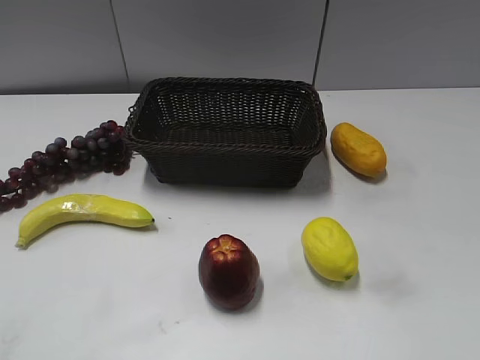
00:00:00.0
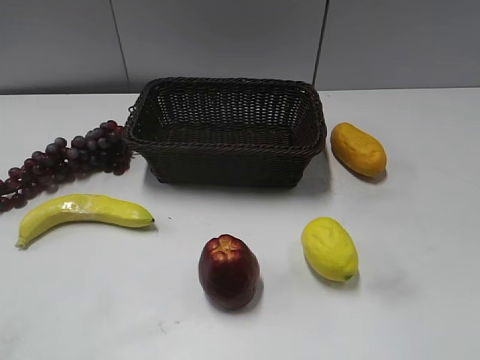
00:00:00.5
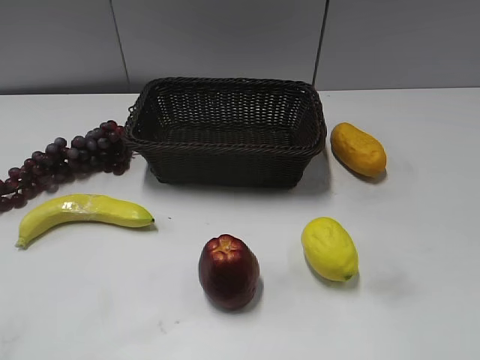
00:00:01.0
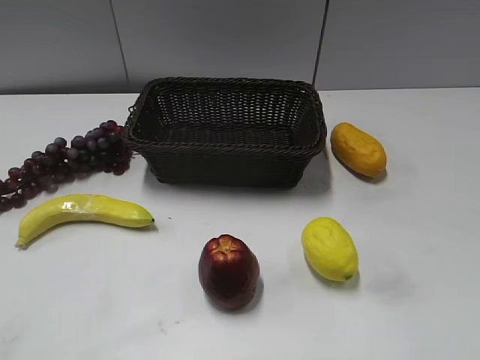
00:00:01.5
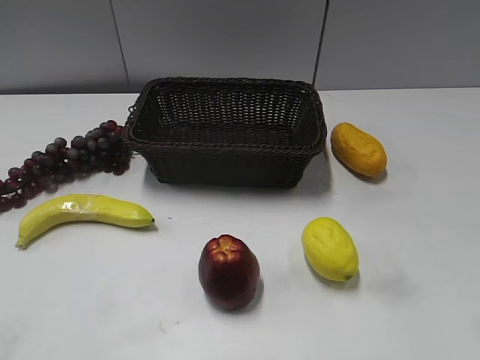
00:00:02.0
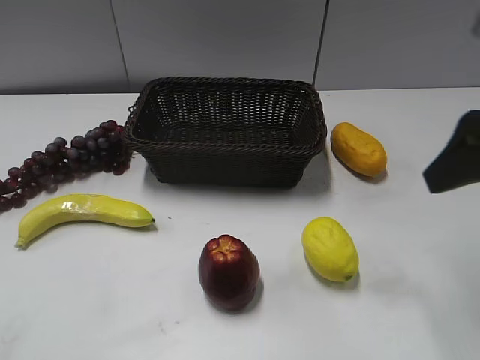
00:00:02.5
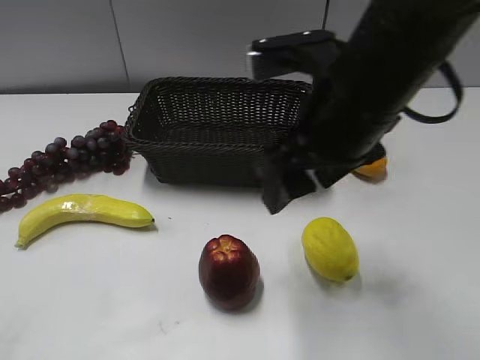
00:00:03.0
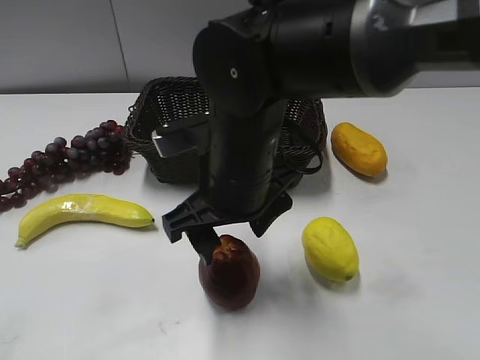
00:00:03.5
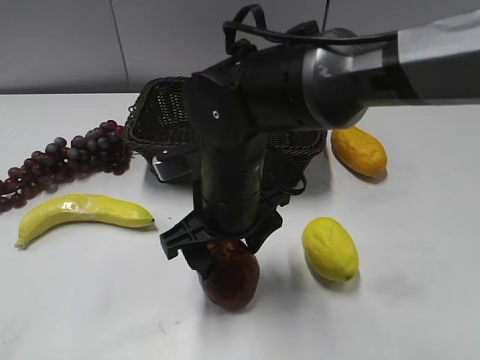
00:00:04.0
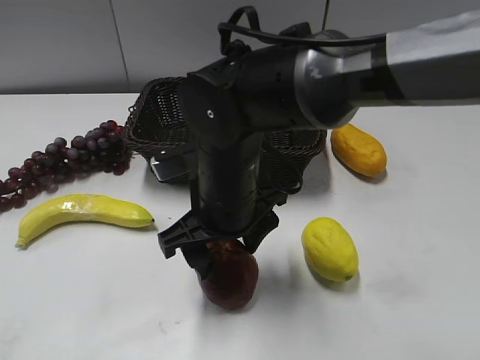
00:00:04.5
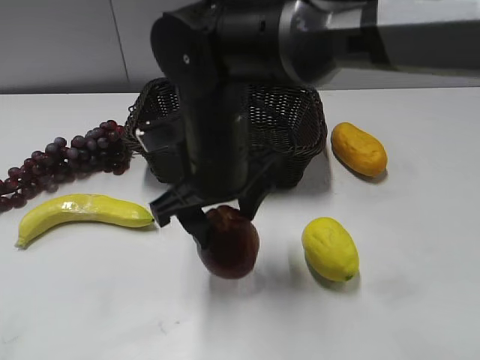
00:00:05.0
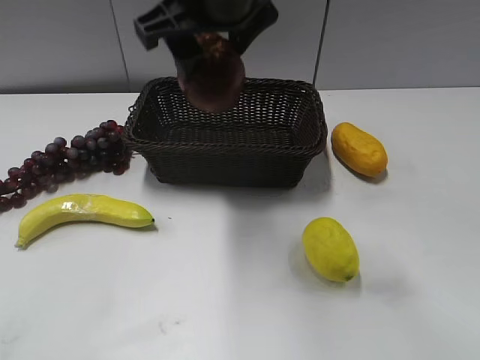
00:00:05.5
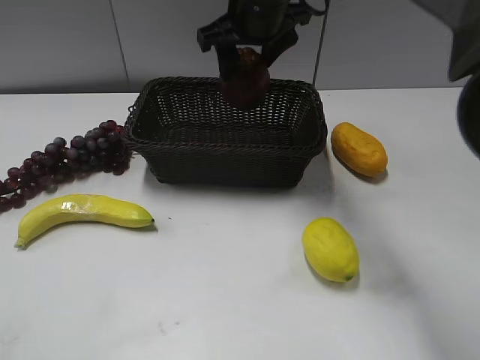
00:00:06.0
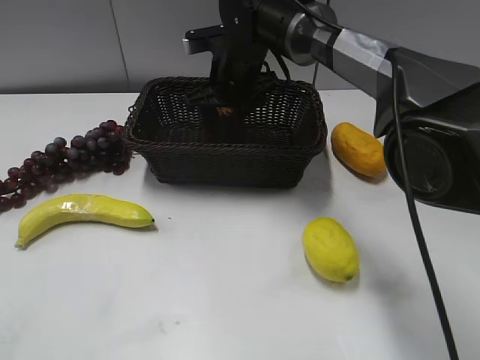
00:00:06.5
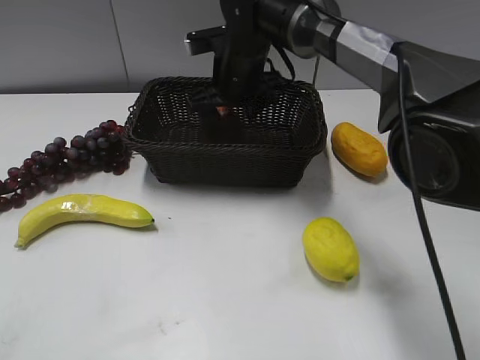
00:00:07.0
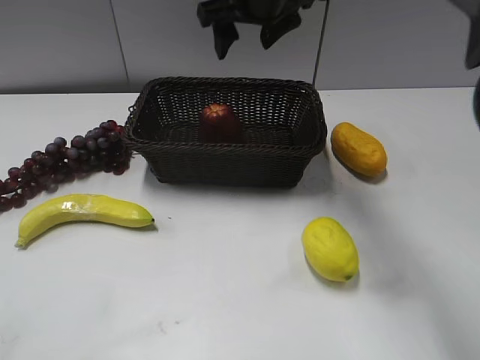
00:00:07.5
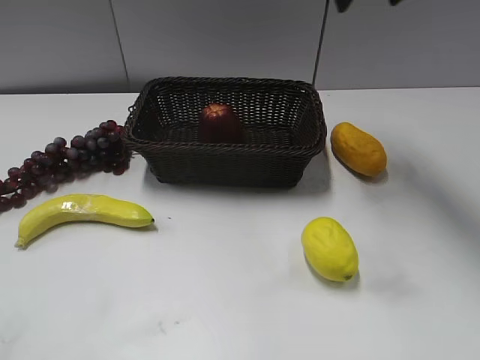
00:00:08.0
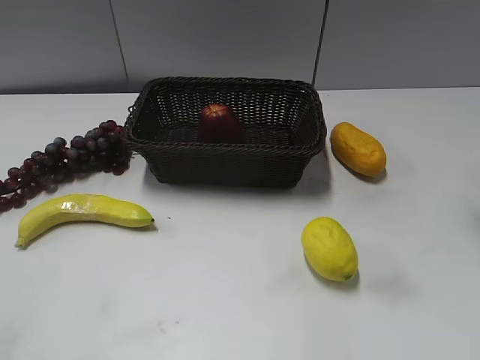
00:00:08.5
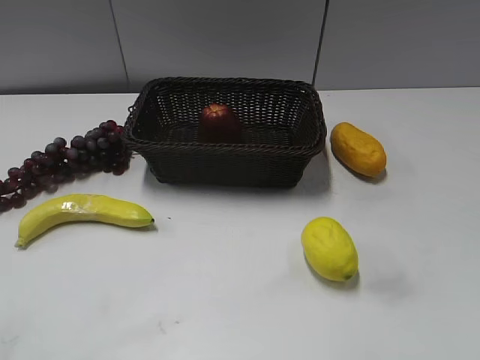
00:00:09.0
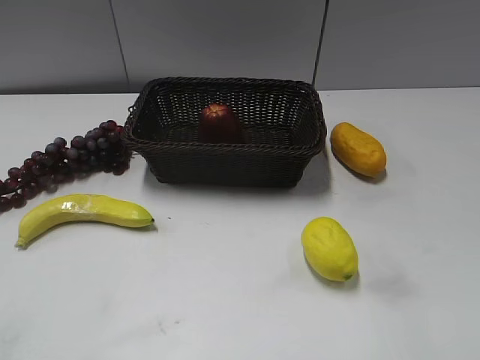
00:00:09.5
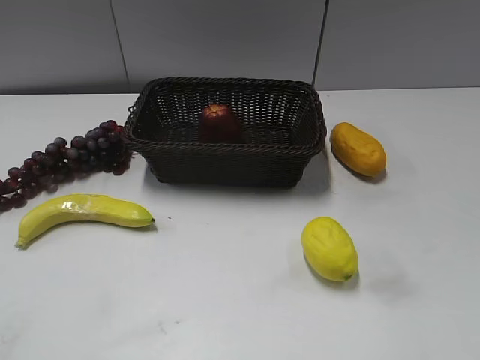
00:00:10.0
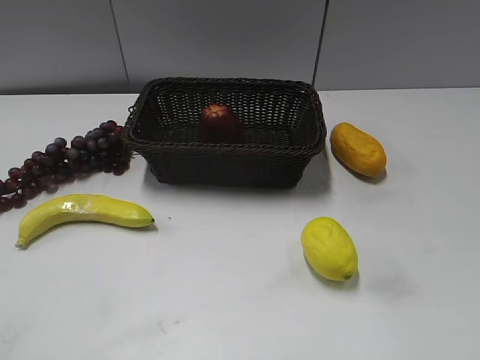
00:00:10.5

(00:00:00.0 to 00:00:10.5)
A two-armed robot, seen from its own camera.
Step, 00:00:02.5 - 00:00:04.0: Grasp the apple with right gripper.
Step, 00:00:04.5 - 00:00:06.5: Place the apple in the basket with right gripper.
00:00:02.0 - 00:00:04.0: The right gripper travels to the left and downward by roughly 35 cm.
00:00:04.0 - 00:00:06.5: The left gripper closes. Meanwhile the right gripper travels forward by roughly 20 cm.
00:00:06.5 - 00:00:08.5: The right gripper heads to the right, upward and backward, covering approximately 40 cm.
